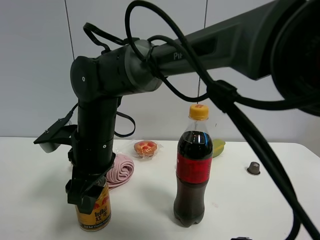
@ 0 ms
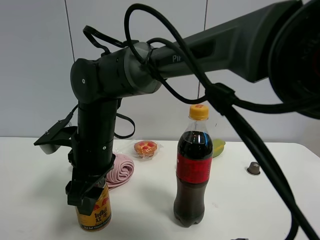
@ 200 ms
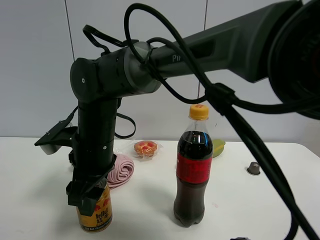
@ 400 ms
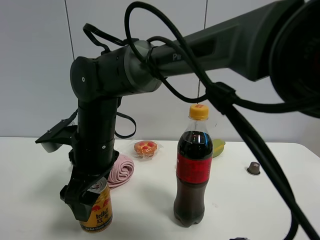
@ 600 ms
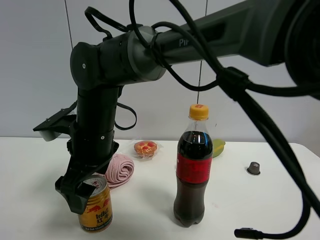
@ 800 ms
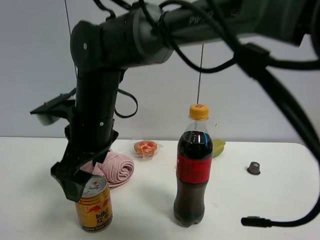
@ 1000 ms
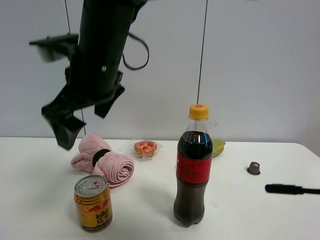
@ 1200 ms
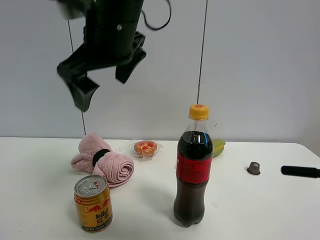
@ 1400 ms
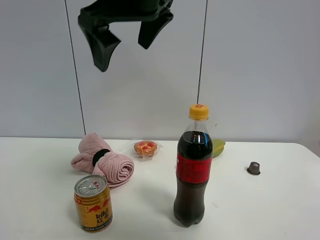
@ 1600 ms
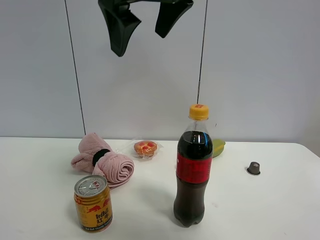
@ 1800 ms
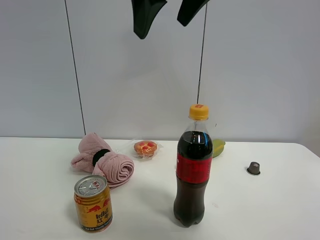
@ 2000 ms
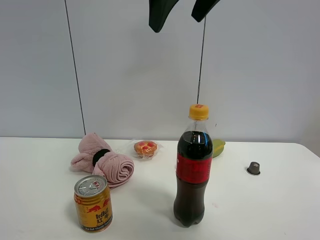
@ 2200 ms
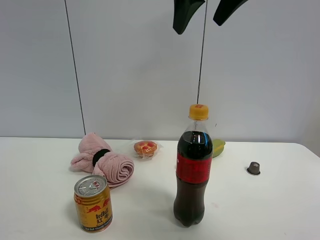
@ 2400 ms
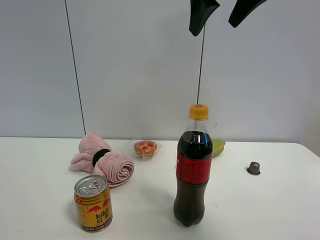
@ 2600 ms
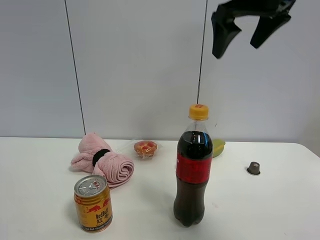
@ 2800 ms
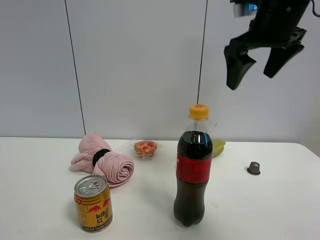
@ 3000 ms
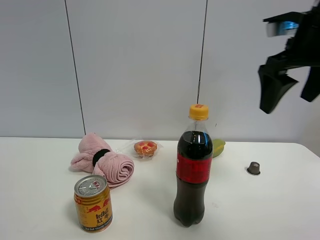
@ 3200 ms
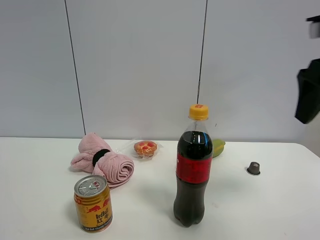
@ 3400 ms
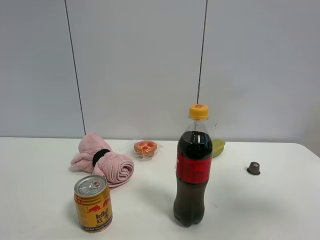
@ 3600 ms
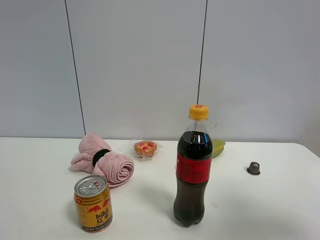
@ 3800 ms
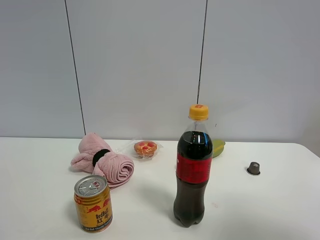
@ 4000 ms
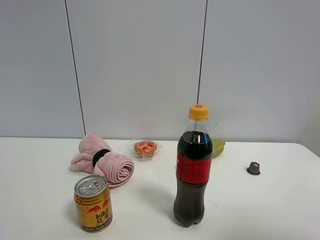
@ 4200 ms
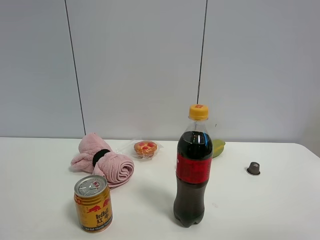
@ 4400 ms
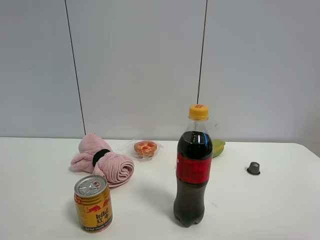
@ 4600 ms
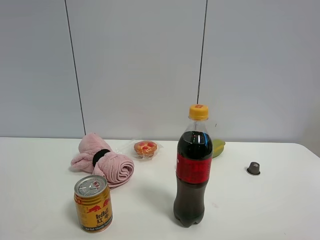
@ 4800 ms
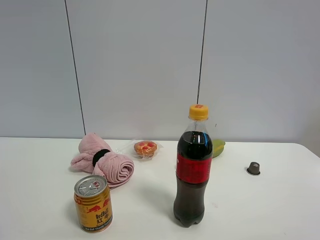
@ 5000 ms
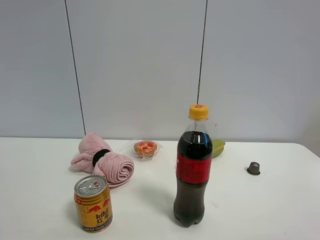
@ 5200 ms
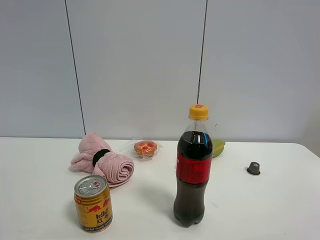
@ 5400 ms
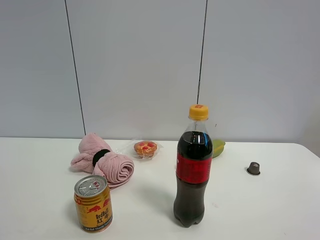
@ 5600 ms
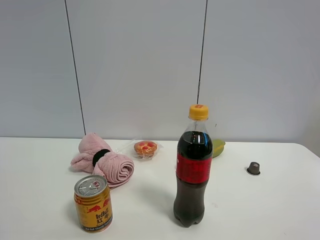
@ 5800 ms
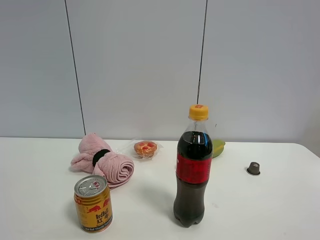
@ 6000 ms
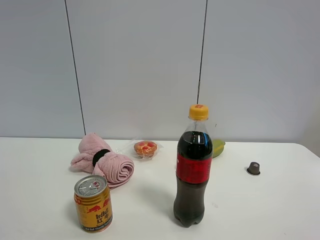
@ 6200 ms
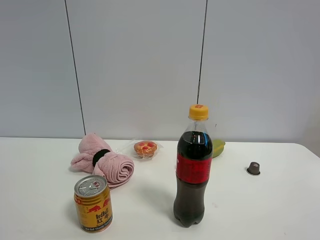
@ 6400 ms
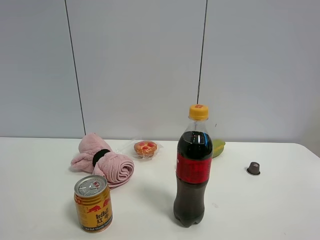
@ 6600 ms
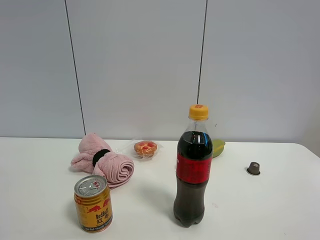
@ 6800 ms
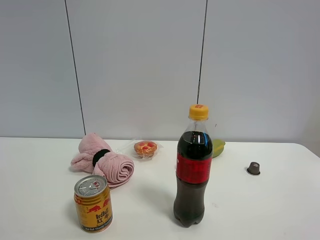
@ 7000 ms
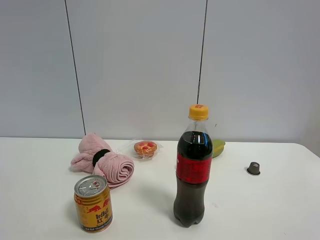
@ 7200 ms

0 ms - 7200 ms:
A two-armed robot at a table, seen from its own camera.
Task of the whole recording: the gripper move the object.
0 ms - 1400 ms: The right gripper heads upward, covering approximately 20 cm, and opens up.
1400 ms - 2800 ms: The right gripper heads to the right, covering roughly 20 cm.
2800 ms - 4400 ms: The right gripper goes some 35 cm backward and to the right.
5800 ms - 7200 ms: The two grippers keep their place.
